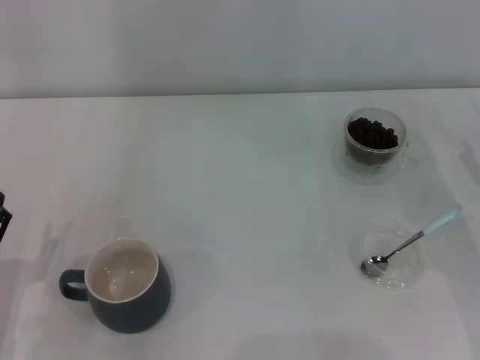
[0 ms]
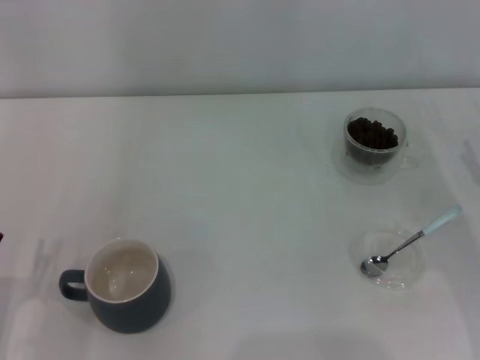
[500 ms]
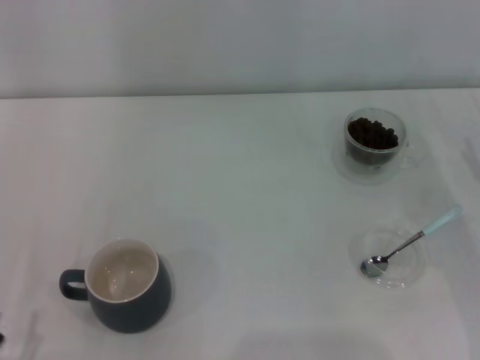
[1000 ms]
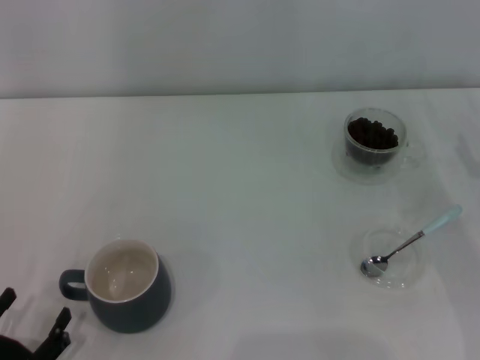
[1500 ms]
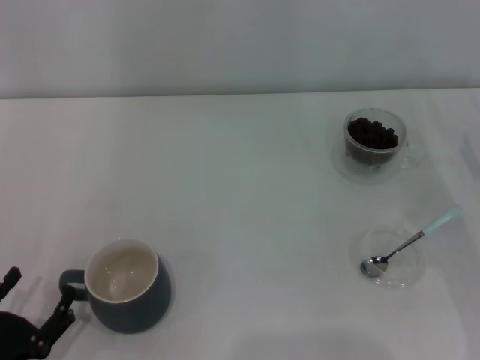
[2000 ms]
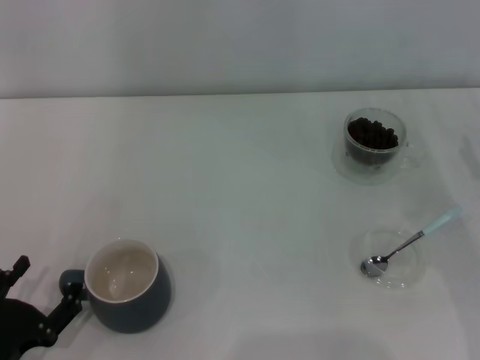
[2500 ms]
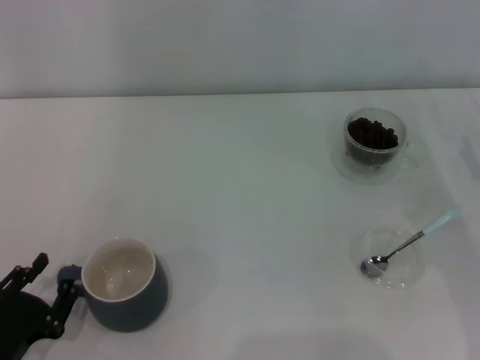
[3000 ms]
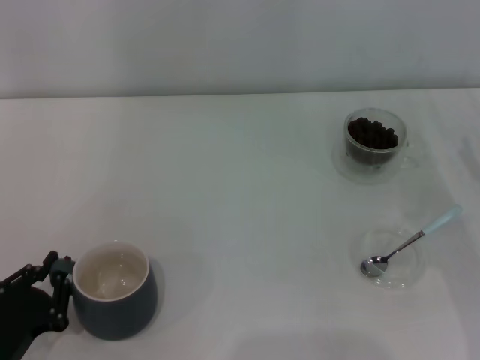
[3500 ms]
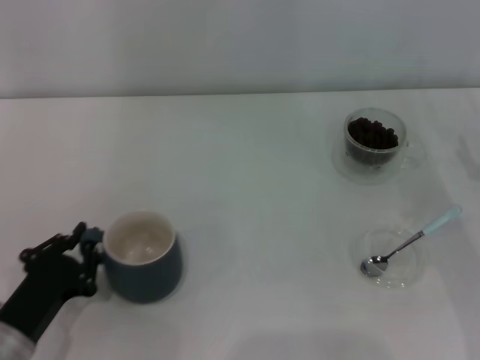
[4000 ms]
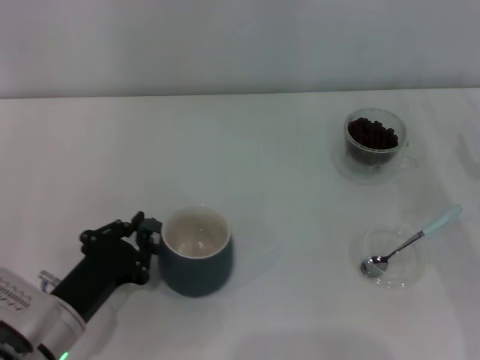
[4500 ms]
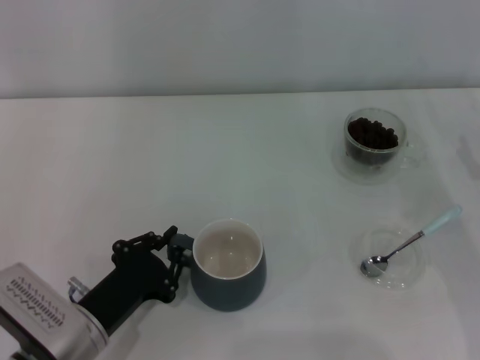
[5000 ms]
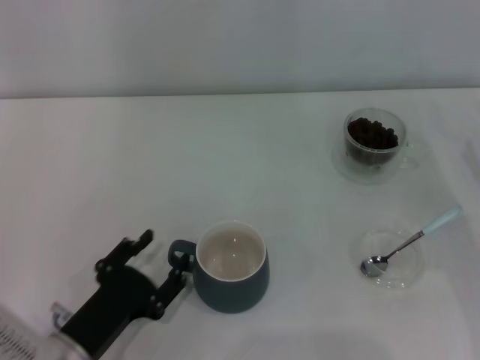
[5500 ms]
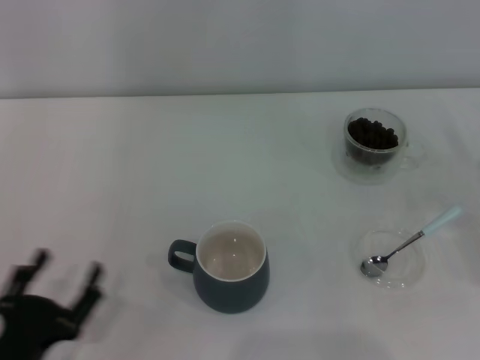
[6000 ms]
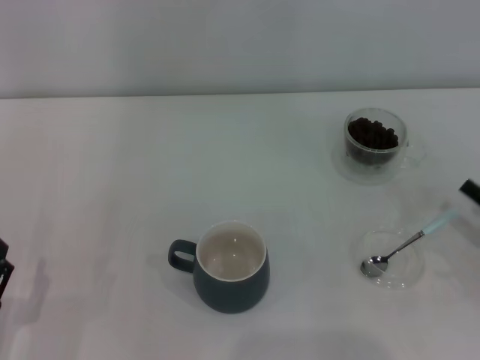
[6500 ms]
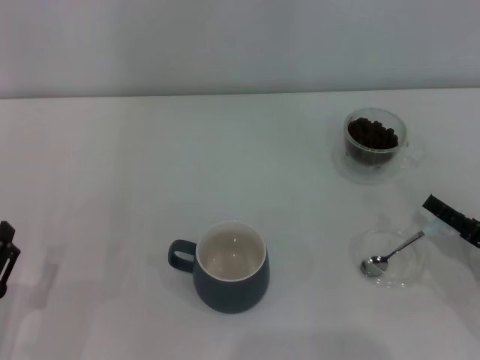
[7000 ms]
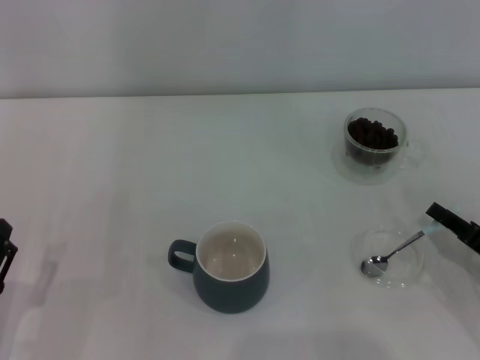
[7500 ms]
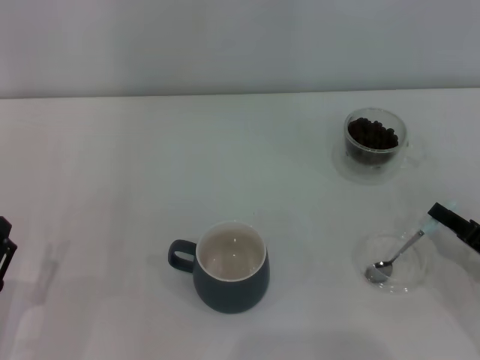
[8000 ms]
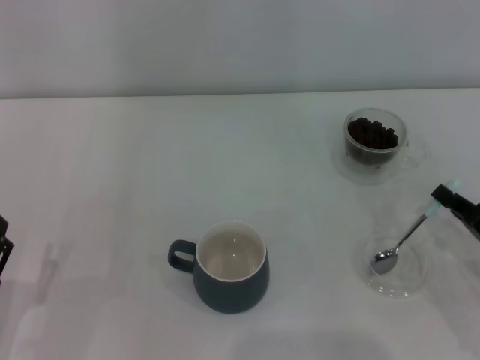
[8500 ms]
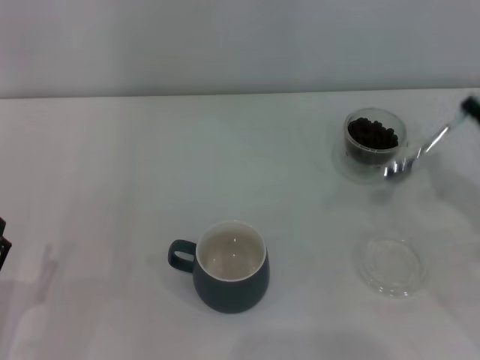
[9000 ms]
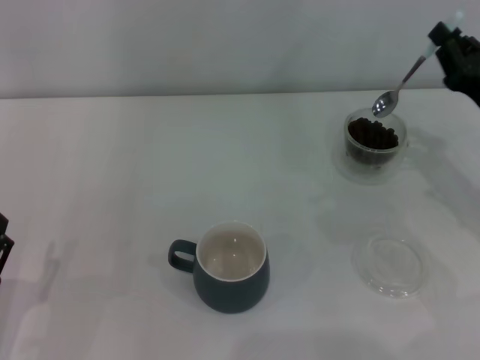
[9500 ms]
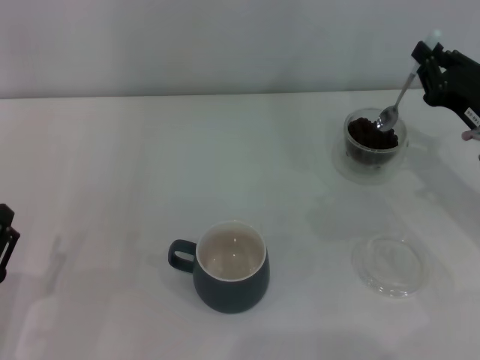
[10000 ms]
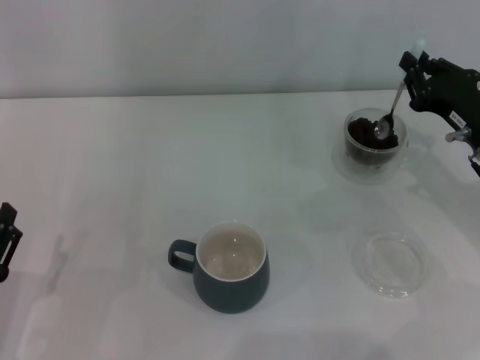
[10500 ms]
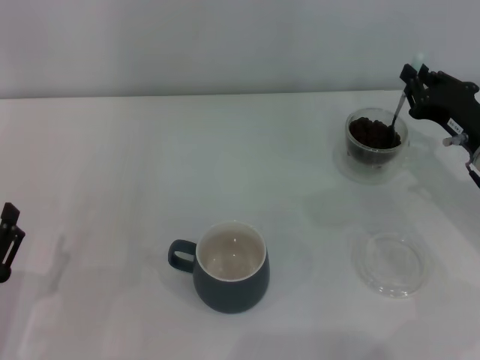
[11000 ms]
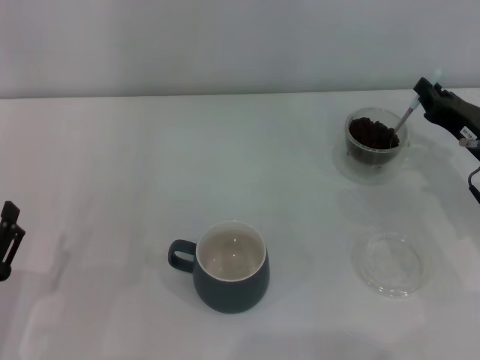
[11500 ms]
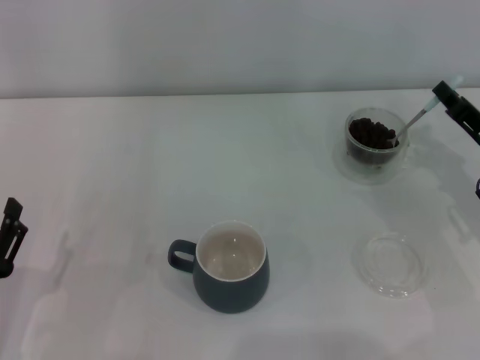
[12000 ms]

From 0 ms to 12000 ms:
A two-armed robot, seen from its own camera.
Task of the whole recording: Use a blue spoon to take out the coffee beans from the glass and pour them into the gray cup.
Step, from 0 ms to 5500 ms: Move the cup to the center of view with the left gripper.
Step, from 6000 ms to 8500 ms: Pick up the spoon with the right gripper.
From 0 ms to 2000 ms: The left gripper goes approximately 5 cm backward.
From 2000 ms to 4000 ms: The left gripper travels forward by roughly 5 cm, and closes up.
From 4000 ms to 6000 ms: The right gripper shifts by roughly 5 cm. Meanwhile the left gripper moves backward, roughly 5 cm, and opens up.
From 6000 ms to 8000 ms: The left gripper changes place by approximately 5 cm, while the right gripper shifts about 5 cm to the left, and closes up.
From 8000 ms to 10000 ms: The right gripper heads forward and upward, covering approximately 15 cm.

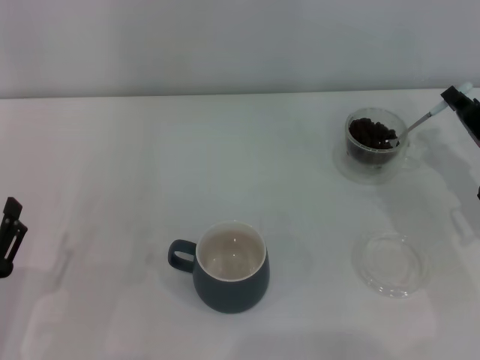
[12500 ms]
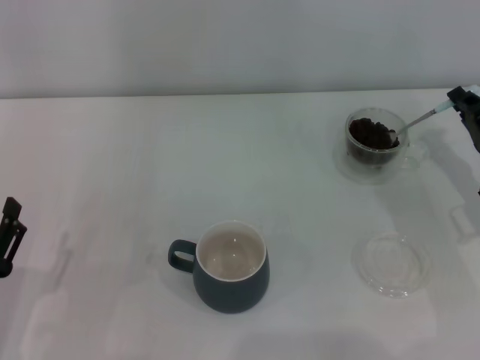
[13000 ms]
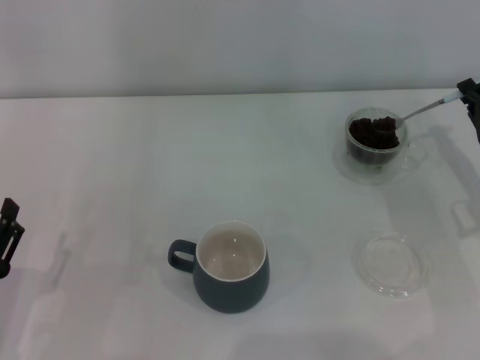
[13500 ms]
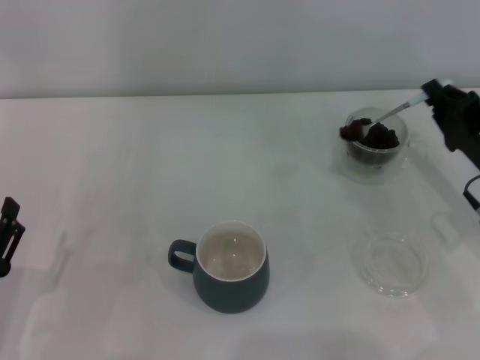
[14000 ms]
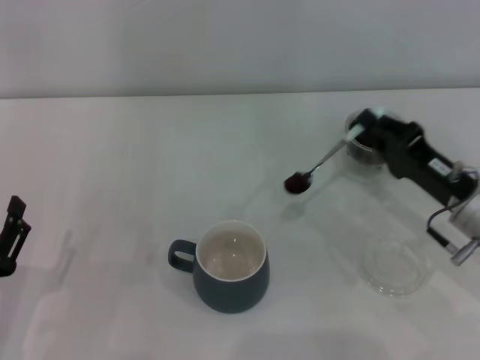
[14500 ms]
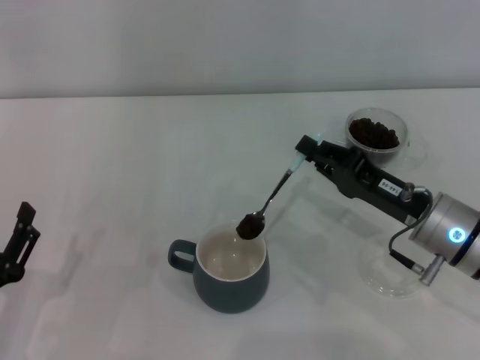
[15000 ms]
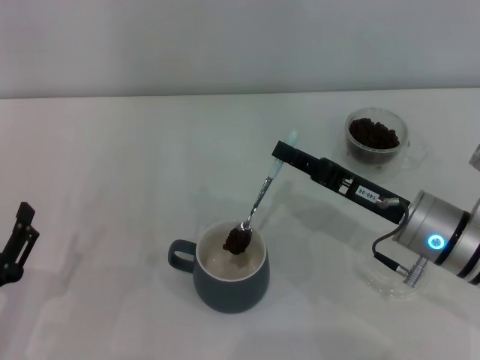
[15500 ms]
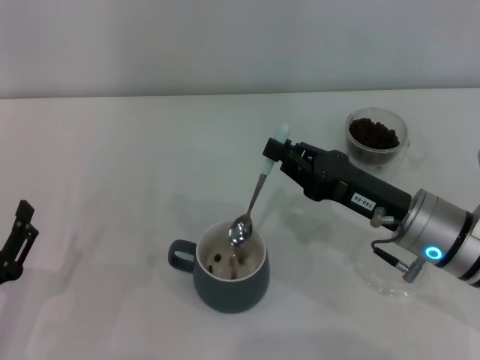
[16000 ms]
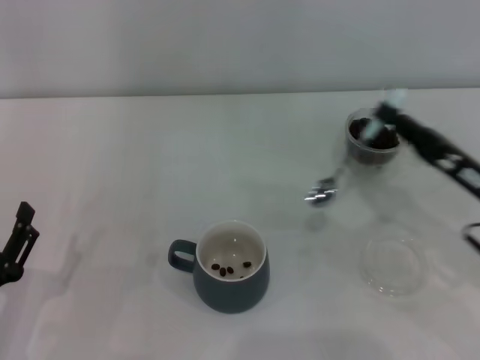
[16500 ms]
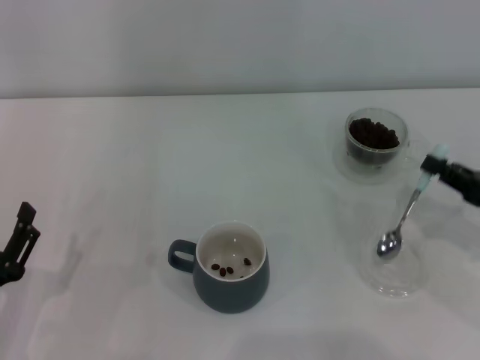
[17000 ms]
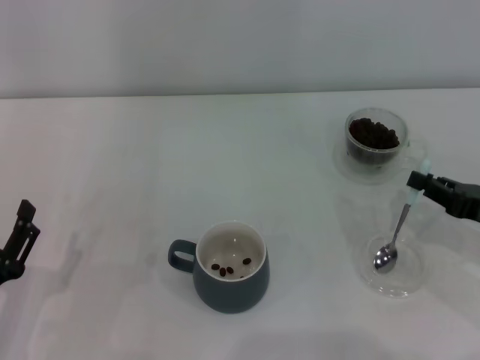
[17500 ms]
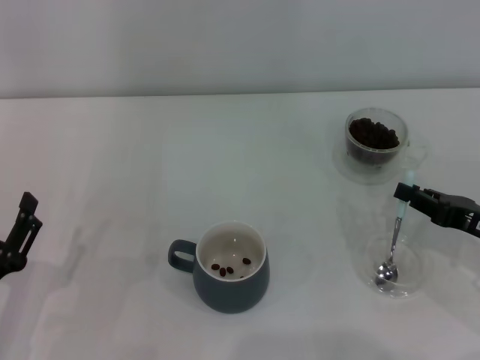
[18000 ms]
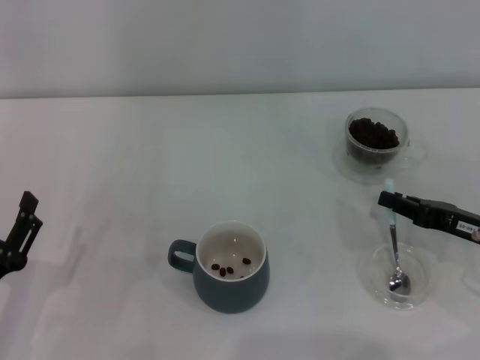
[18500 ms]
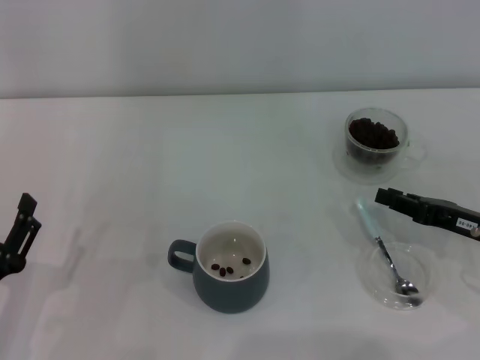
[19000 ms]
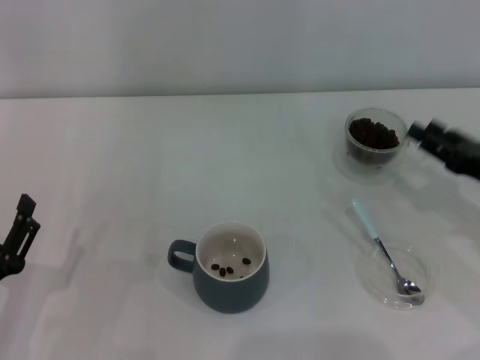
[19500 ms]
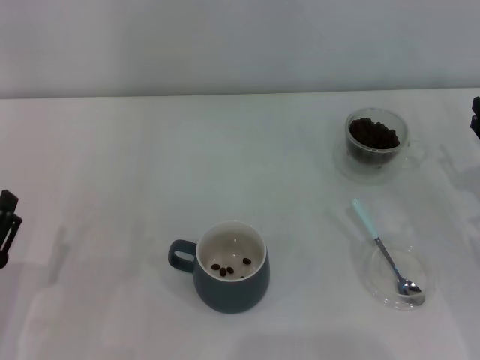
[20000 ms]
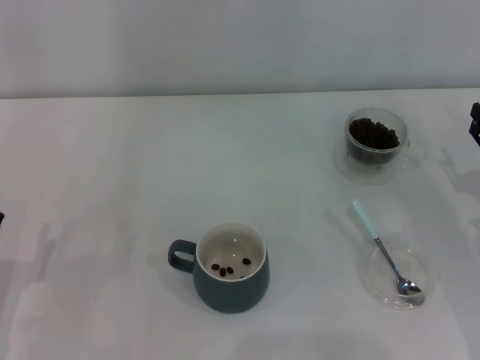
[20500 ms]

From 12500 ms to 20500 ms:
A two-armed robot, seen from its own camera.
Task of the whole recording: Use a blue spoon to take out the coffee beans from the glass and pour them into the gray cup.
Step, from 12500 ms to 16000 ms: Scoop a spoonful of beans into the cup with the right gripper.
Step, from 16500 ms to 19000 ms: Place the spoon back in its original place with the right gripper.
From 12500 ms to 14500 ms: The right gripper heads to the left, covering roughly 5 cm.
From 14500 ms to 16500 ms: The right gripper reaches approximately 5 cm to the left, then returns.
From 16500 ms to 18500 ms: The right gripper ends up about 5 cm from where it was.
From 18500 ms to 20500 ms: The right gripper opens.

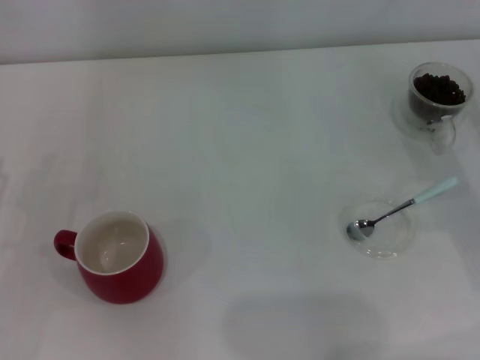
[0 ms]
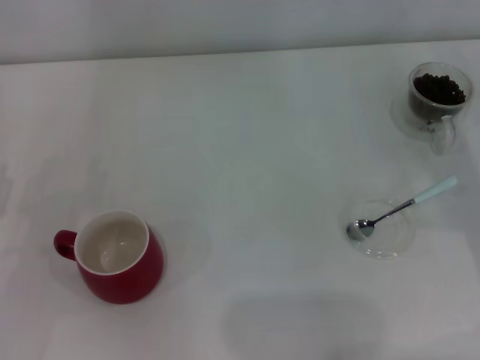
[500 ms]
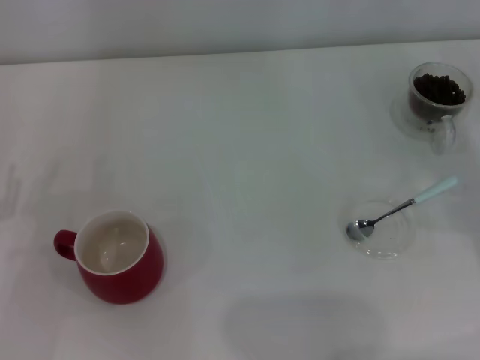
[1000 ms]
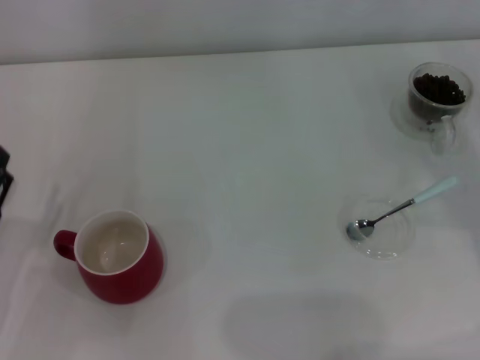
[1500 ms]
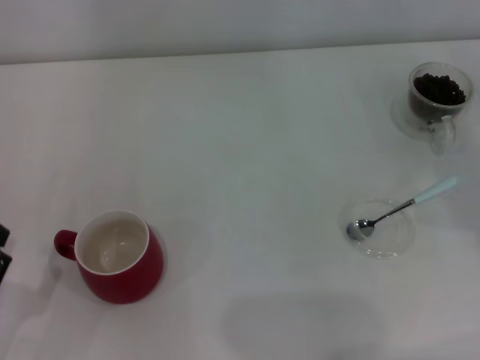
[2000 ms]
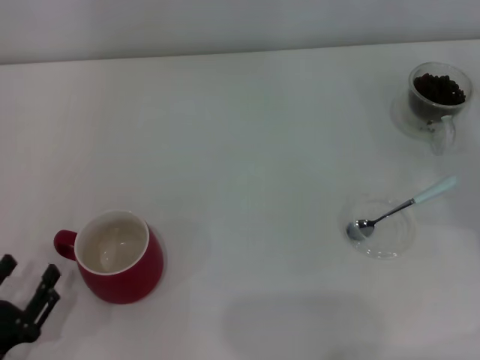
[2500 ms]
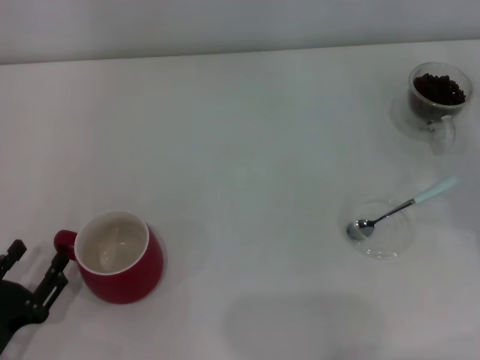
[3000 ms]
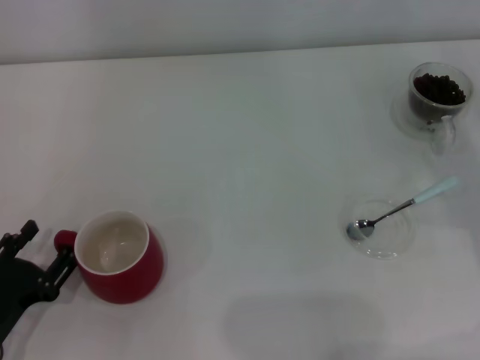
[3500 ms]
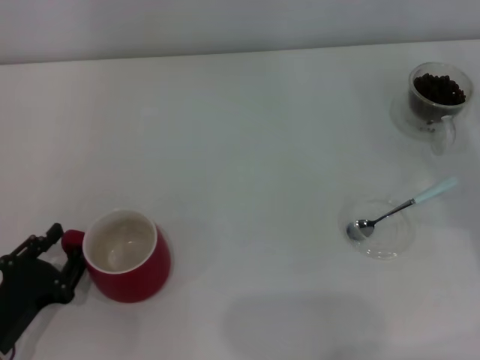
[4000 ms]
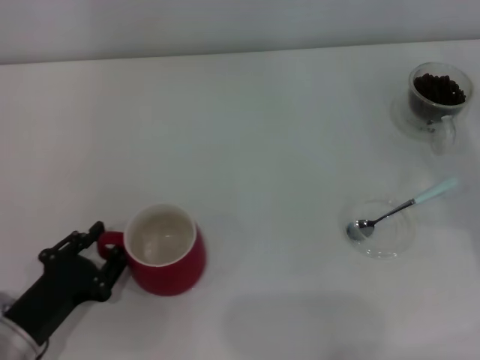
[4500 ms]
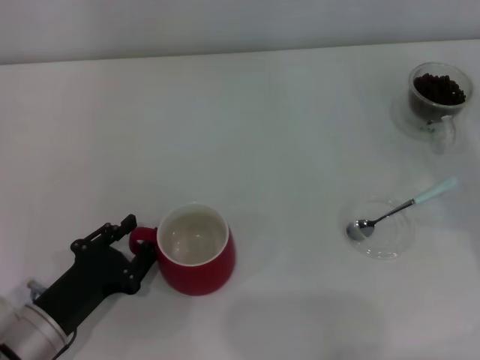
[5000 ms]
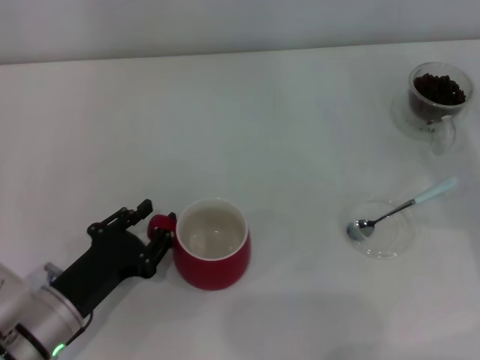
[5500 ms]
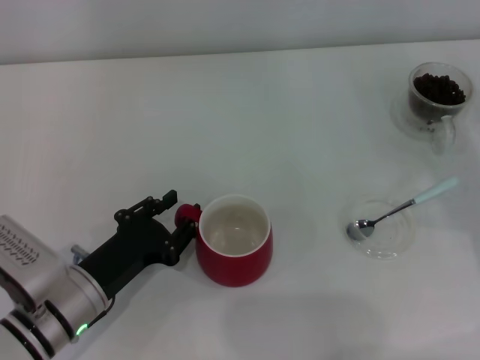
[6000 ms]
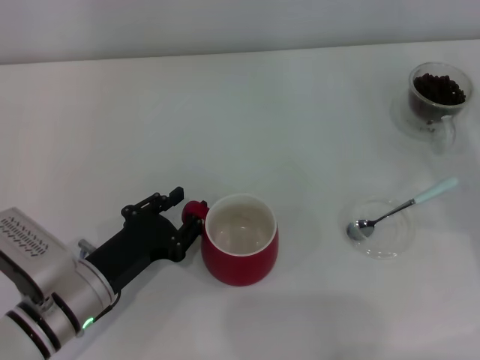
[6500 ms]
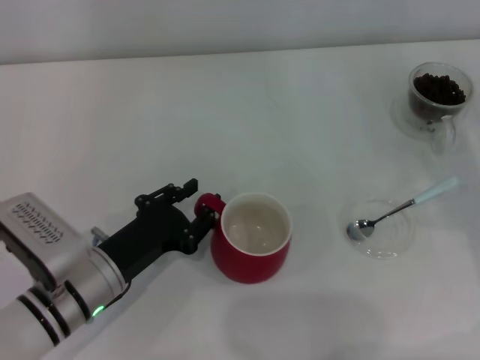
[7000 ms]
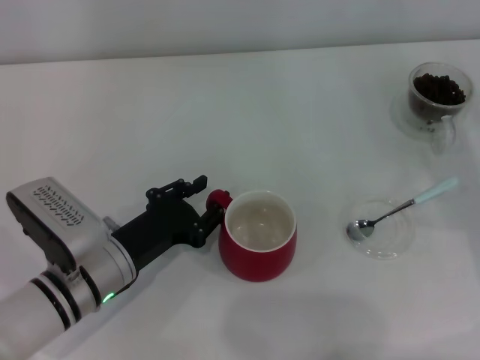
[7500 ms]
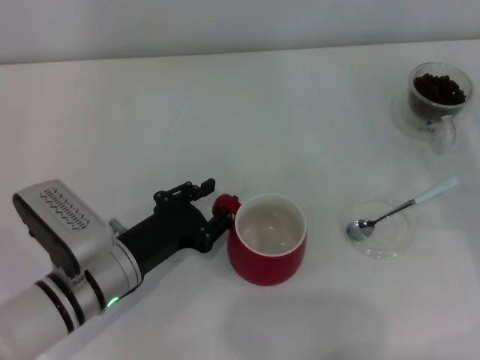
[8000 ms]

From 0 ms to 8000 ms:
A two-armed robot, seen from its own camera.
Task of the whole recording: Use a blue spoon to take out the coffee beans from the glass and pour them into the red cup.
From 2000 ms to 4000 ms: The left gripper shifts about 5 cm forward.
From 4000 ms to 6000 ms: The left gripper travels to the right and forward by roughly 10 cm.
From 6000 ms to 8000 ms: The grippers make only small movements.
